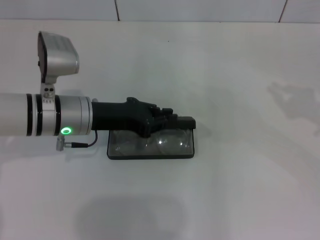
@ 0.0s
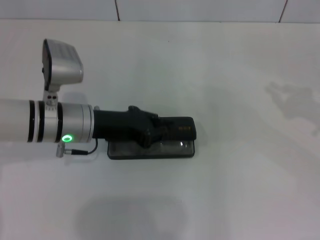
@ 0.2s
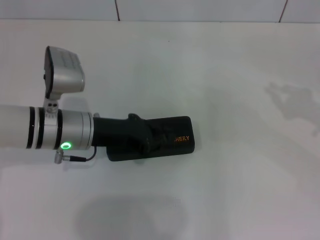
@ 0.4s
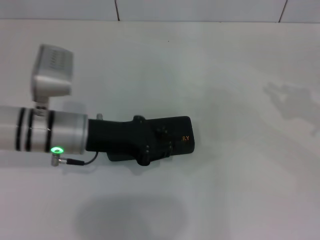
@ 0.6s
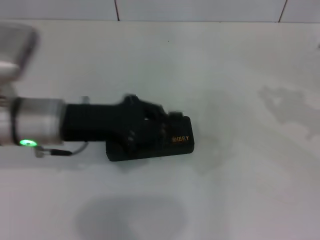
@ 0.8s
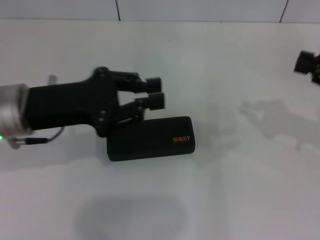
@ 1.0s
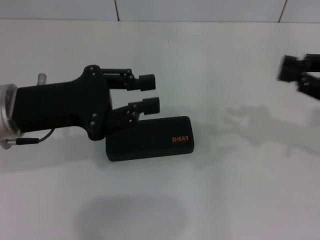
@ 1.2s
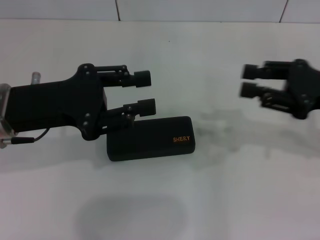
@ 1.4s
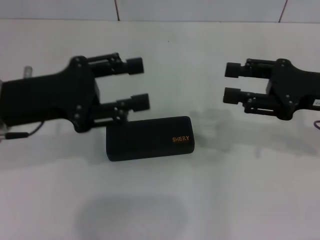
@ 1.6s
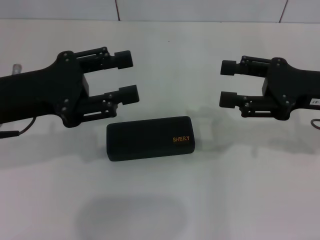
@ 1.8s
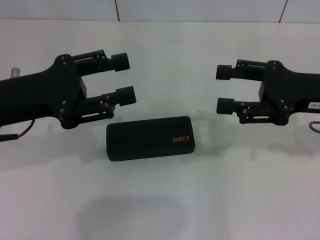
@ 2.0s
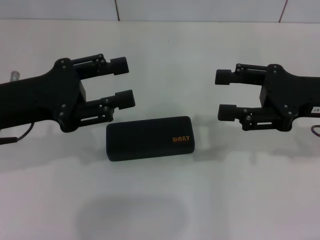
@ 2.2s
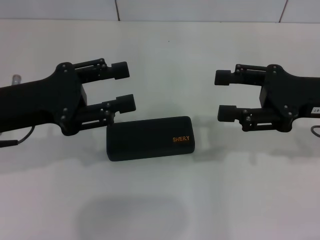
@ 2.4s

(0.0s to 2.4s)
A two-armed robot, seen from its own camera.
0.0s - 1.2s: The right gripper goes about 5 cm to the left. Meanwhile the left gripper is displaced upward, backward and to the left by about 10 cm.
1.2s - 2.4s: The right gripper travels to the left by roughly 5 cm, and opens up; the left gripper opens.
